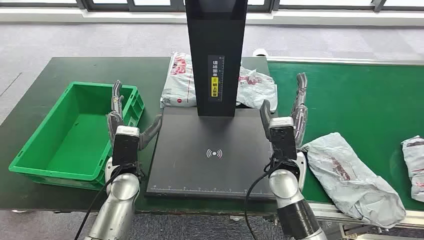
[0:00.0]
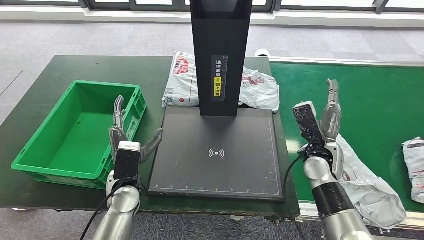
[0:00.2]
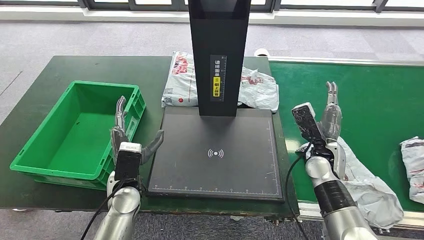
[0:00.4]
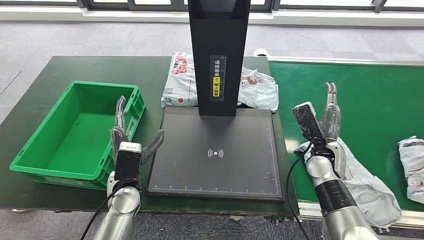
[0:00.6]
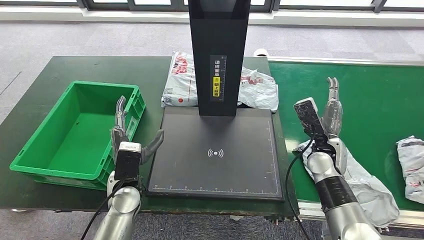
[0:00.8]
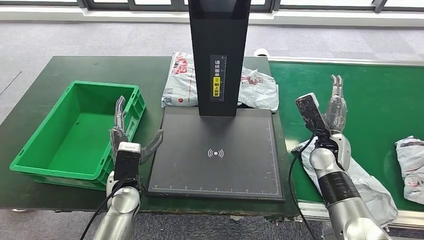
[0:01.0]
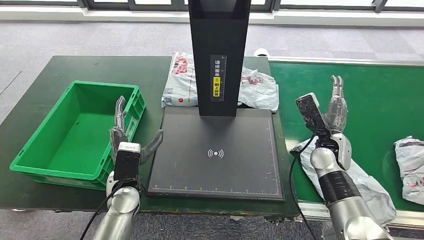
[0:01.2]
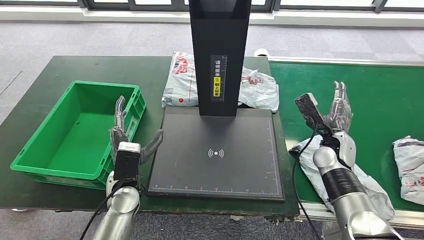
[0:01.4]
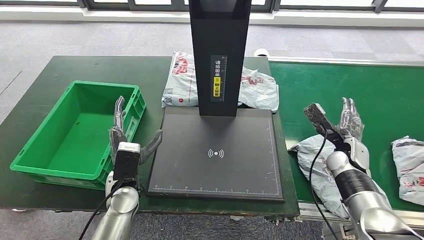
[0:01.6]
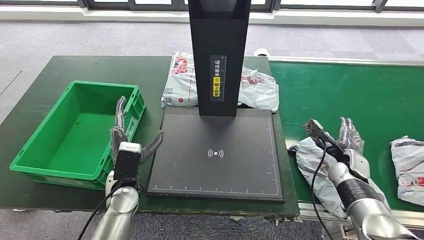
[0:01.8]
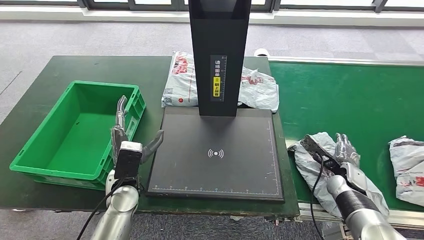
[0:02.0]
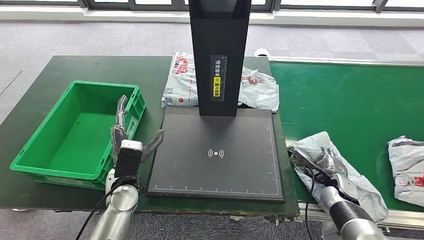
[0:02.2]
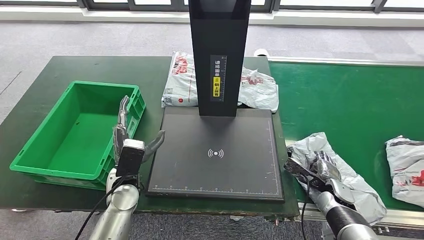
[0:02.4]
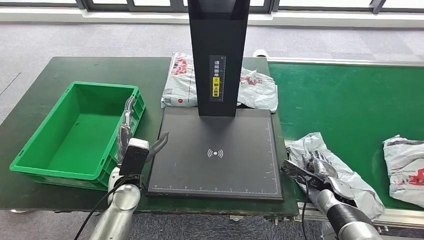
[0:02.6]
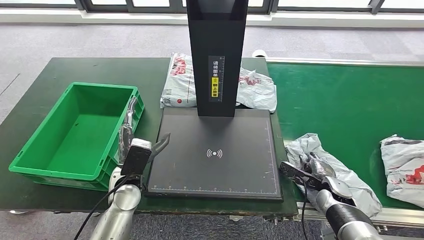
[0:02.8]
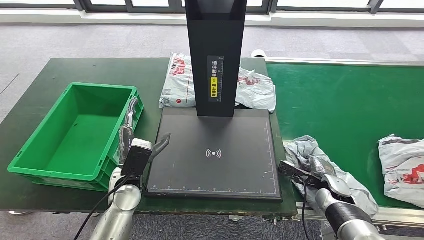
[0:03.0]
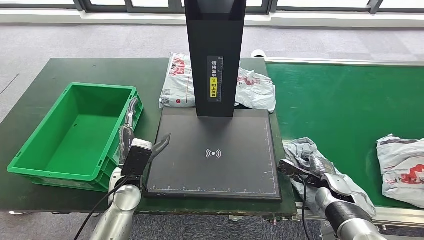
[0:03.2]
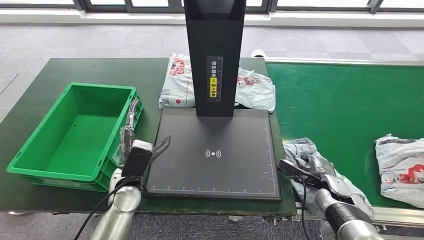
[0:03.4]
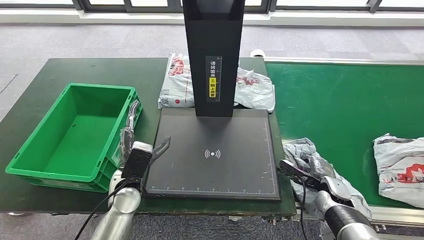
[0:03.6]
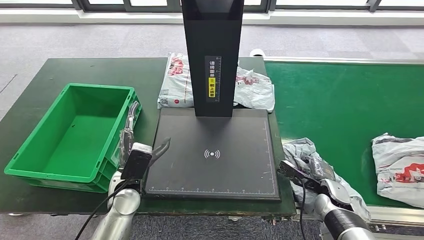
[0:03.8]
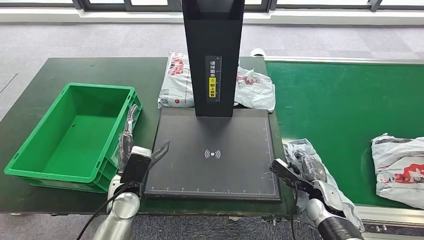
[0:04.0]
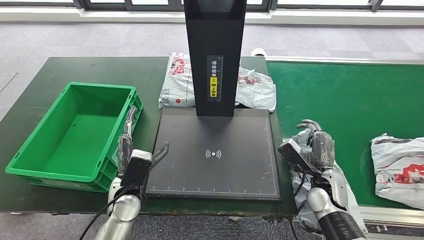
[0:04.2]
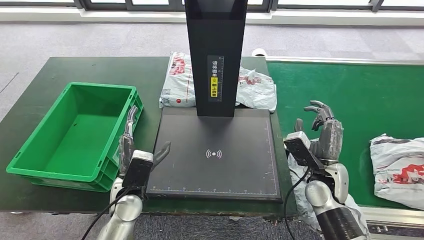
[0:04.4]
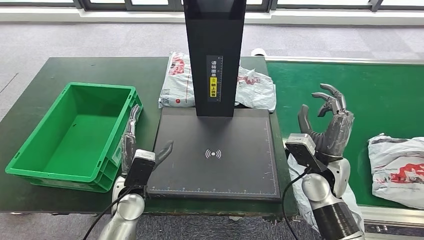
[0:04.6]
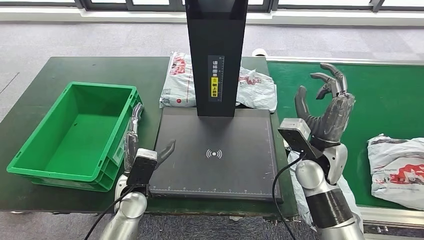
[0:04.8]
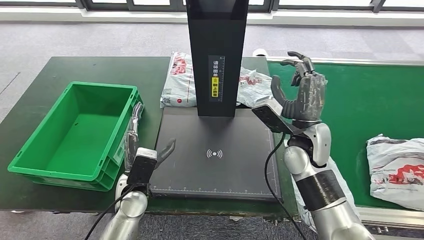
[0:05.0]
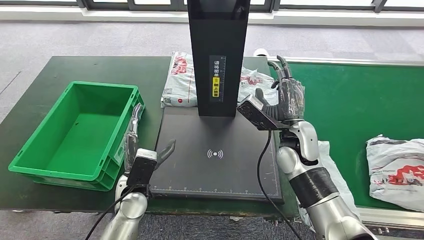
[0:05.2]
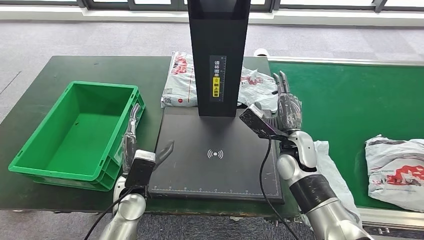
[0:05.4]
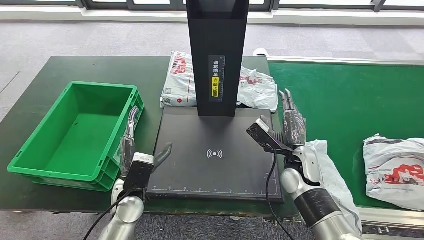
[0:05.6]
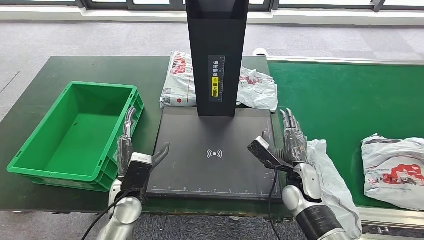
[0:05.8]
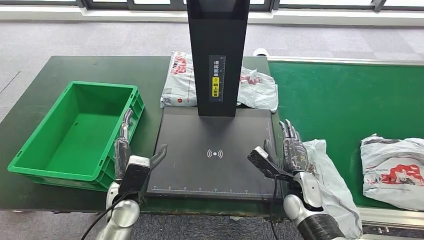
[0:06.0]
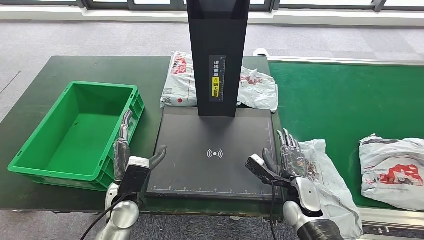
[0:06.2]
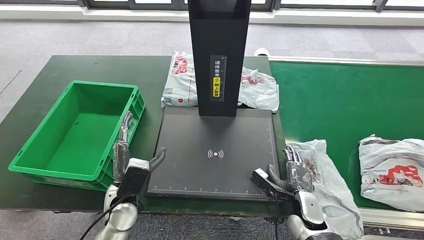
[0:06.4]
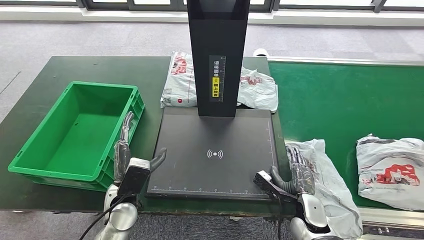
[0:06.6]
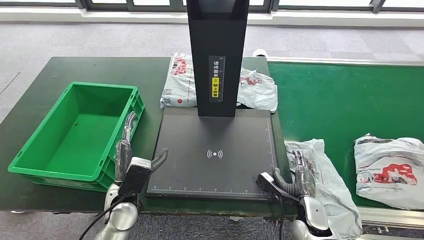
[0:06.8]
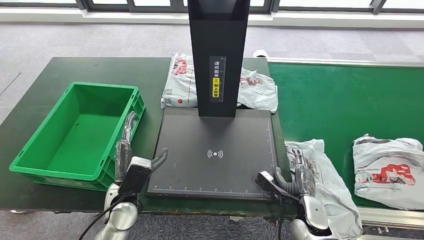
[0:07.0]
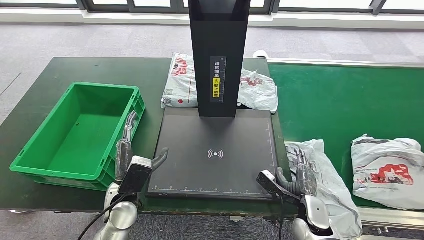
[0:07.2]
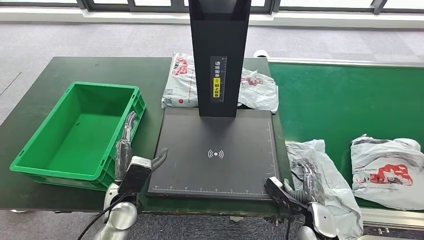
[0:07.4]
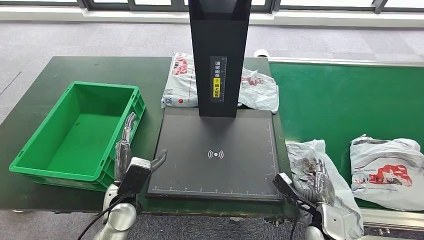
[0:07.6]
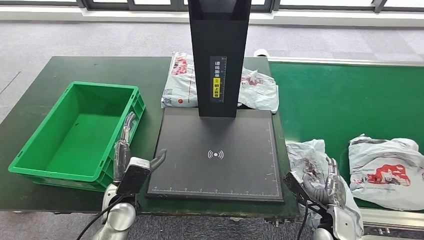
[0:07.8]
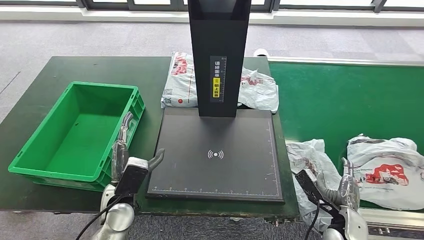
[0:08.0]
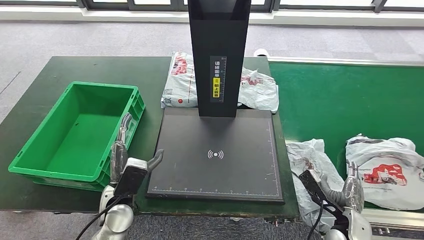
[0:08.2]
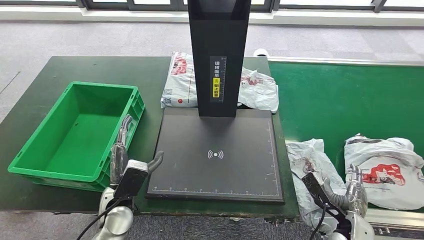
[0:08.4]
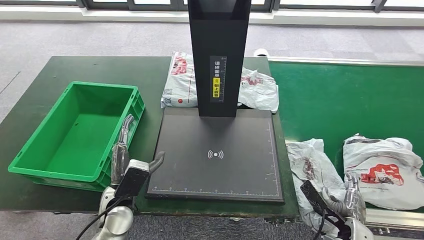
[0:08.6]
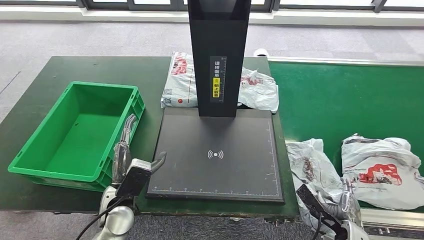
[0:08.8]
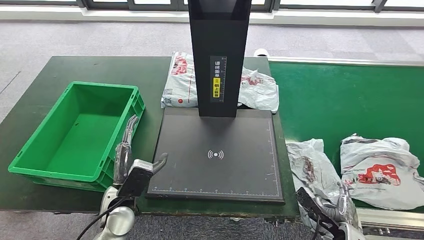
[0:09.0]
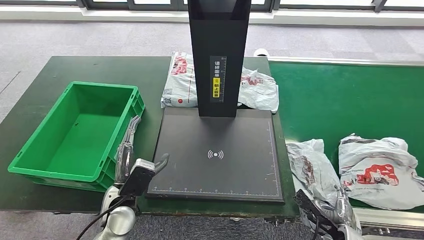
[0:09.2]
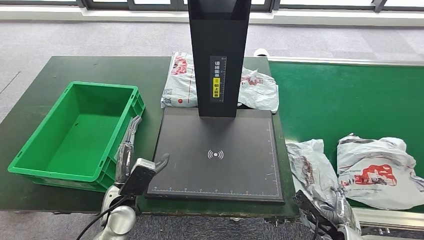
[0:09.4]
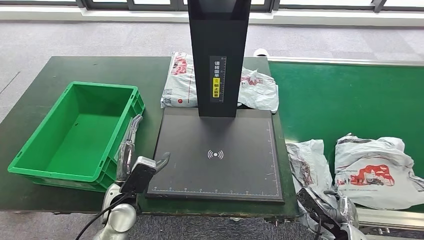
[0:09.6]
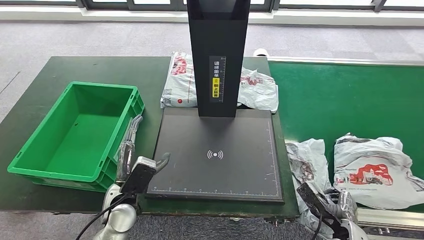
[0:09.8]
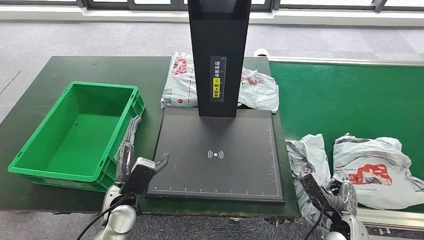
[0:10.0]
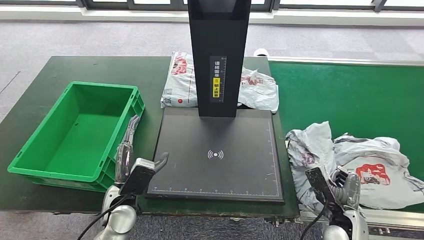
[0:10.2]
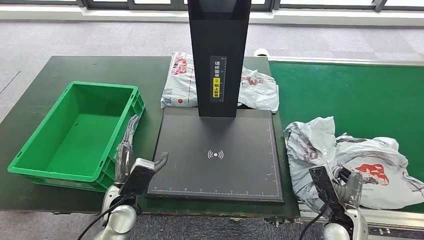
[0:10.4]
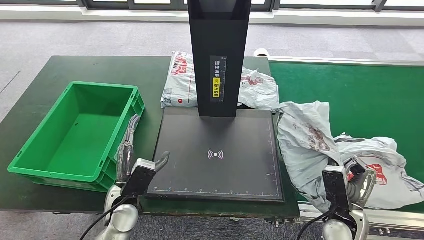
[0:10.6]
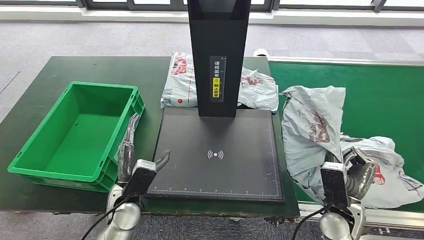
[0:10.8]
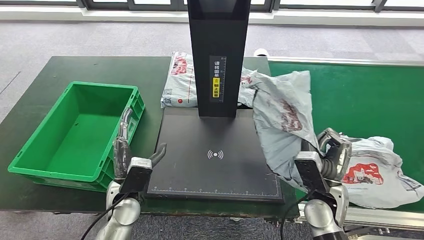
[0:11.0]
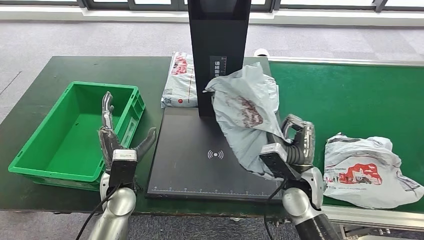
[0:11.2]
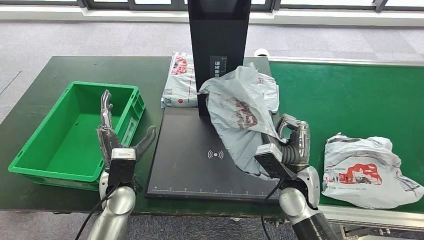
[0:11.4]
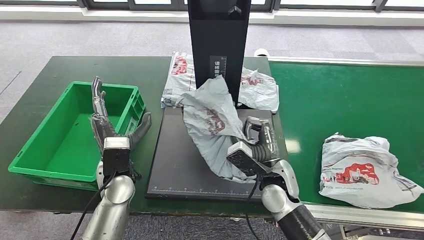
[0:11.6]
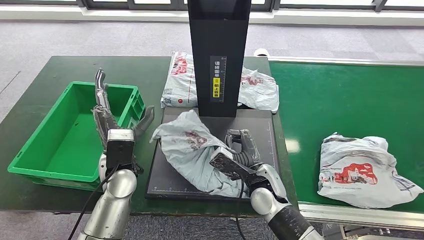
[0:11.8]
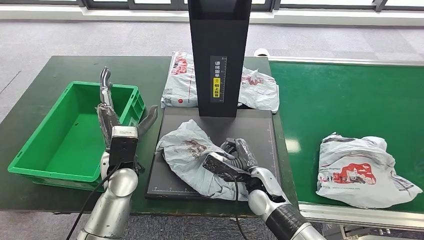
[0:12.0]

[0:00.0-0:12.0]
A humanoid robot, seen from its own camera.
Step, 0:00.0 to 0:11.4: Take the parcel off the conveyor belt.
0:04.4 to 0:06.0: The right hand travels downward by some 5 cm.
0:06.0 to 0:07.6: The right hand moves backward and to the right, roughly 10 cm.
0:07.6 to 0:09.0: The right hand shifts by about 5 cm.
0:09.0 to 0:10.4: The right hand ends up roughly 5 cm from where it was.

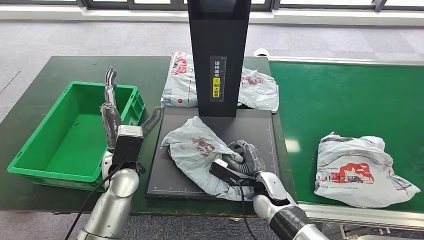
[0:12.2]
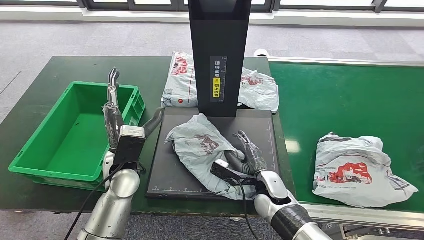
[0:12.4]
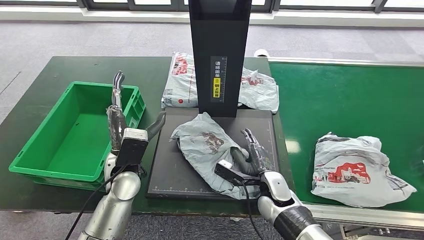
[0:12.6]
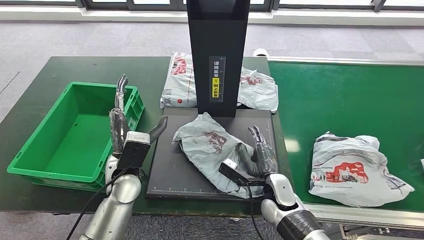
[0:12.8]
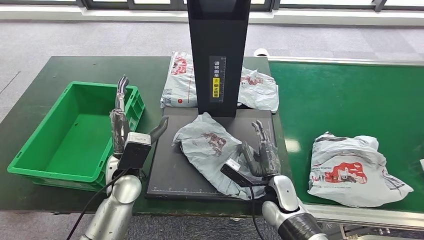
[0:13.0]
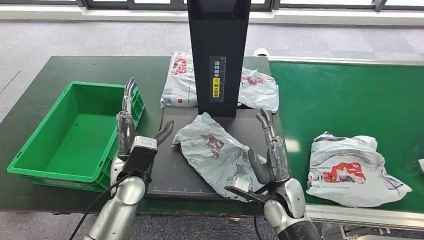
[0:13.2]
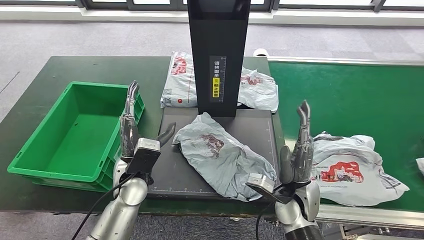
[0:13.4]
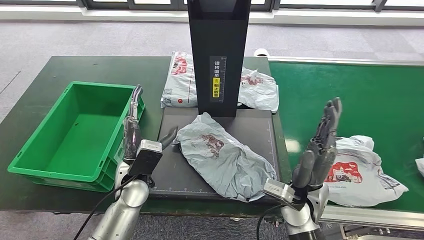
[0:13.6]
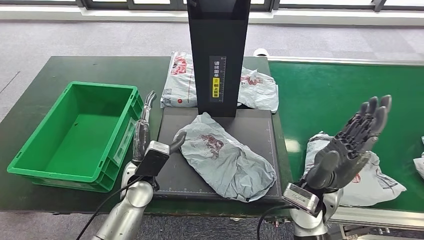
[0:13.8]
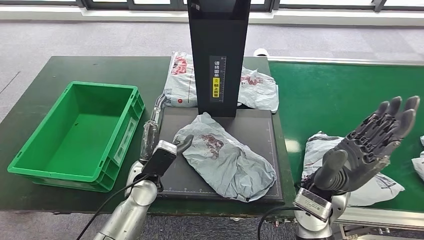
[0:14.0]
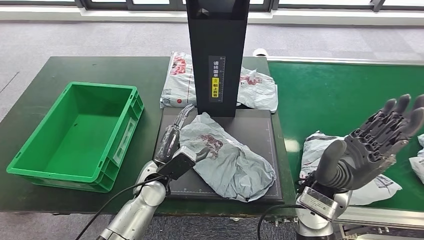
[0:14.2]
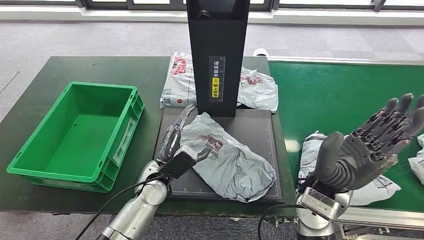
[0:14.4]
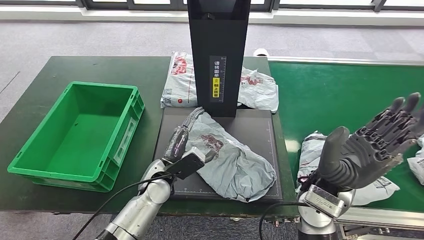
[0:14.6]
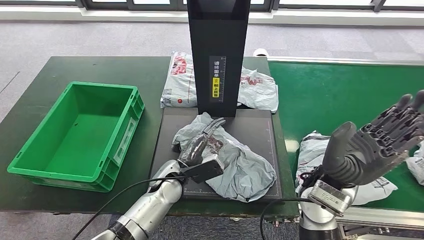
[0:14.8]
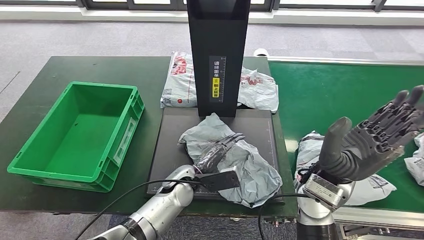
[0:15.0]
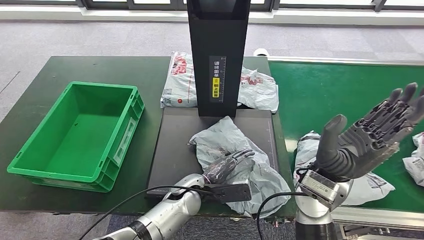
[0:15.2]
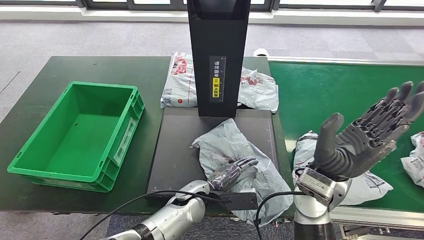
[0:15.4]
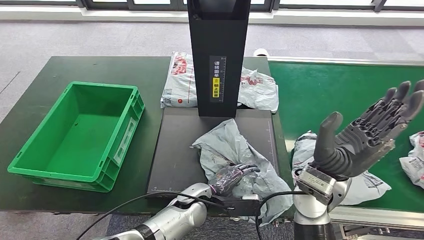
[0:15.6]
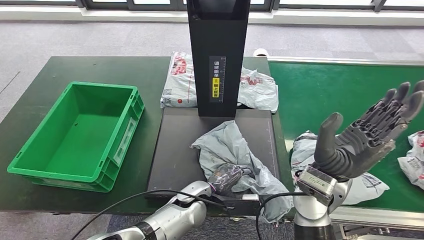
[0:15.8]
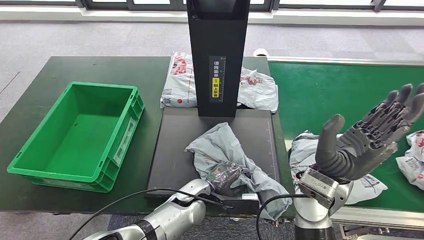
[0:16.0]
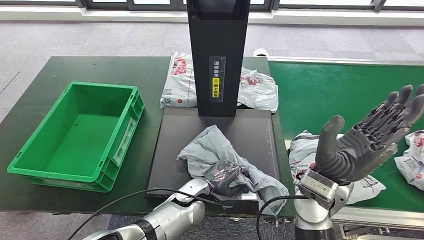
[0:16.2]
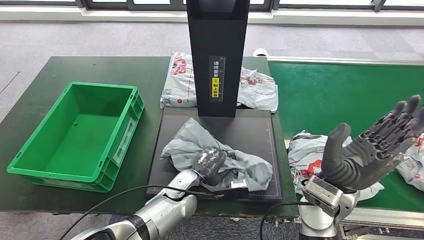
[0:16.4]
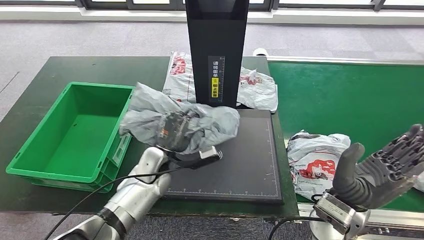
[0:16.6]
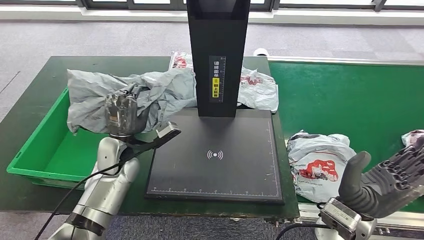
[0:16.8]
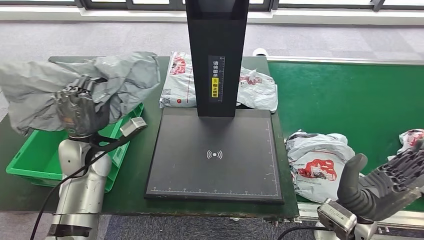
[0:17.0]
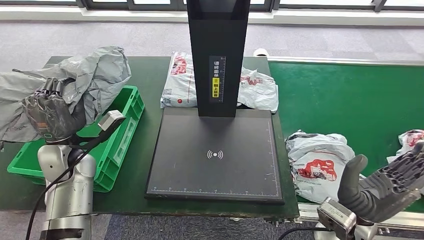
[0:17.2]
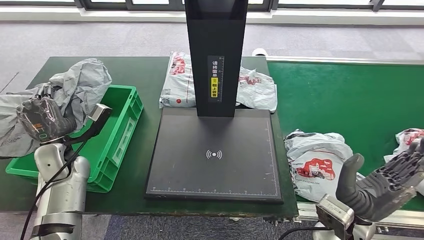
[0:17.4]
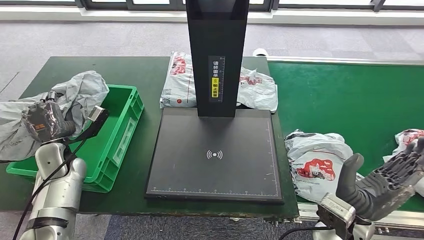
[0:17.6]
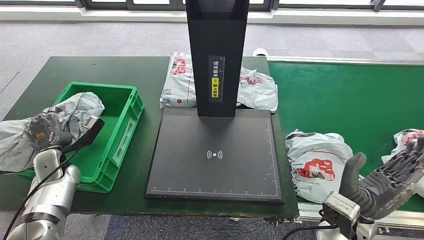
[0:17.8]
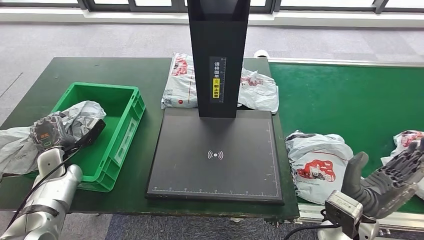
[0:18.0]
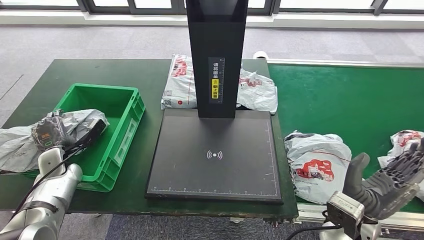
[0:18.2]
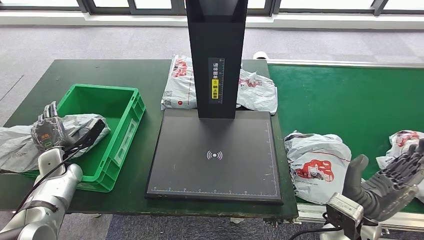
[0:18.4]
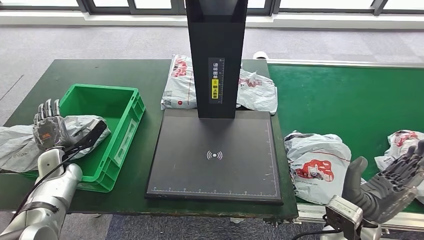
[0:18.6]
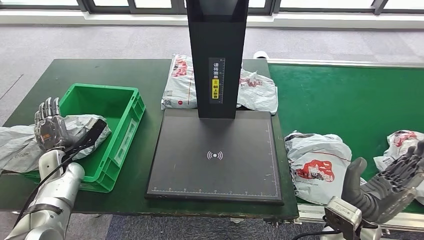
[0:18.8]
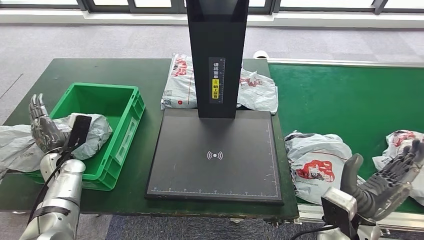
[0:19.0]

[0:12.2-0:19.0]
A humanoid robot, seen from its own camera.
Step, 0:12.2 to 0:13.8: Place the parcel onto the inbound machine.
Step, 0:14.0 to 0:17.0: Pick up the parcel from the inbound machine.
0:12.2 to 0:13.6: The right hand heads upward and to the right, covering about 10 cm.
0:13.6 to 0:15.0: The right hand shifts approximately 10 cm upward. Meanwhile the left hand is displaced to the right and downward by approximately 10 cm.
